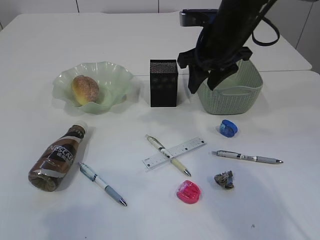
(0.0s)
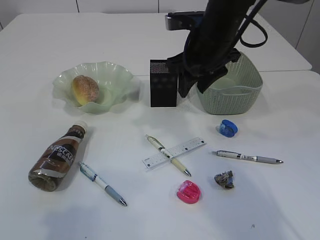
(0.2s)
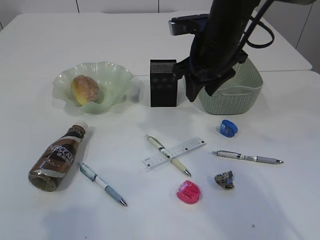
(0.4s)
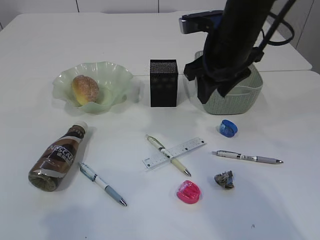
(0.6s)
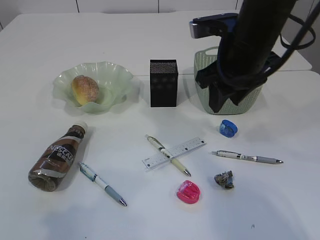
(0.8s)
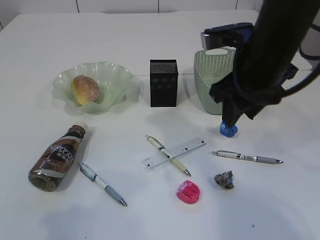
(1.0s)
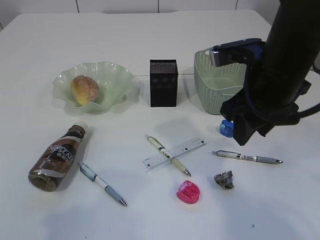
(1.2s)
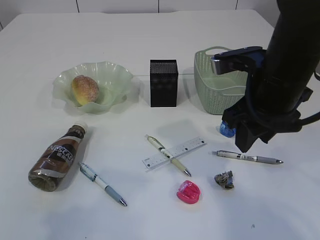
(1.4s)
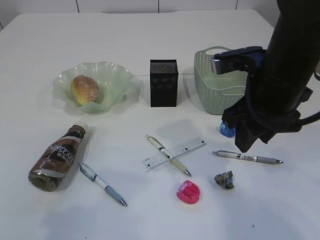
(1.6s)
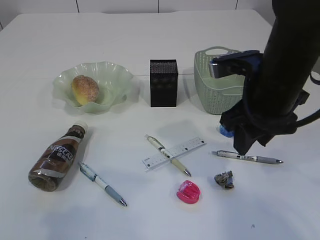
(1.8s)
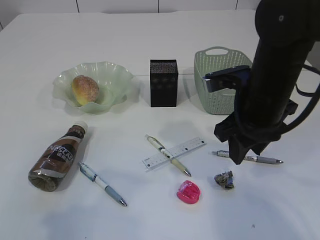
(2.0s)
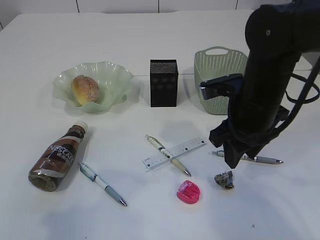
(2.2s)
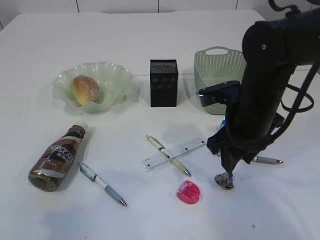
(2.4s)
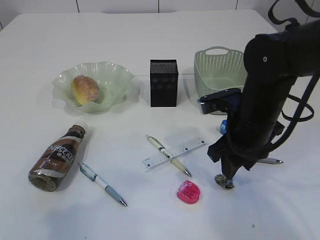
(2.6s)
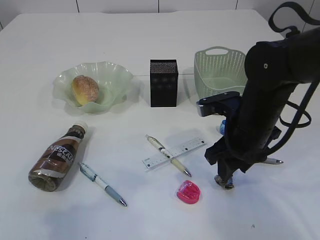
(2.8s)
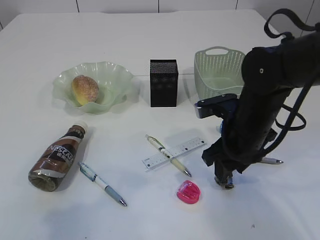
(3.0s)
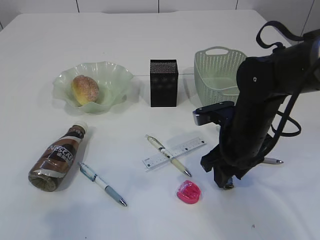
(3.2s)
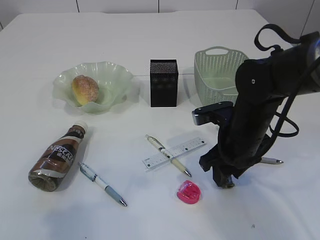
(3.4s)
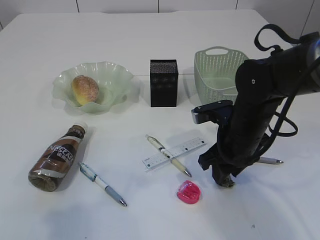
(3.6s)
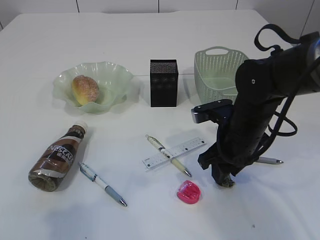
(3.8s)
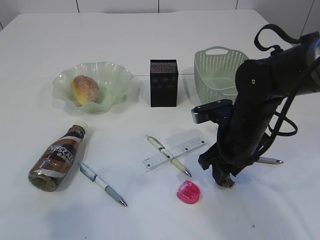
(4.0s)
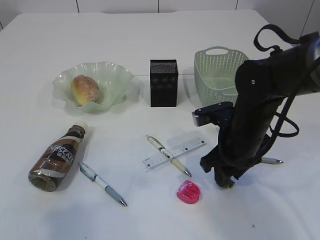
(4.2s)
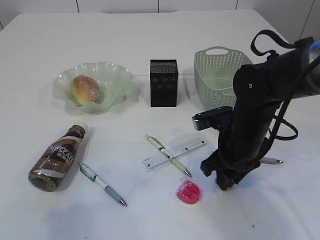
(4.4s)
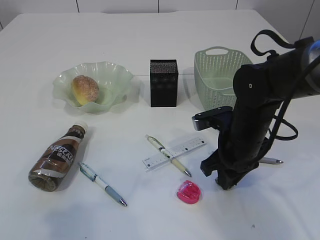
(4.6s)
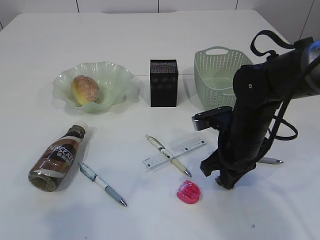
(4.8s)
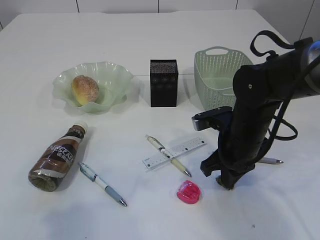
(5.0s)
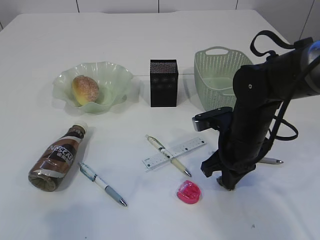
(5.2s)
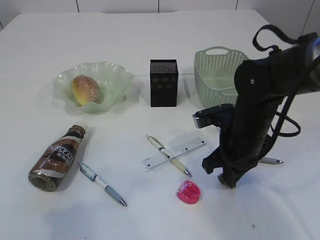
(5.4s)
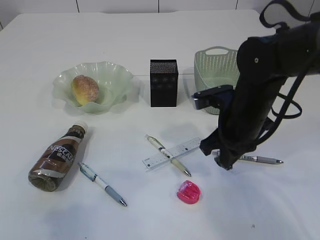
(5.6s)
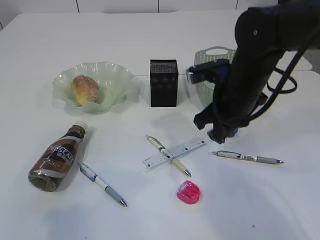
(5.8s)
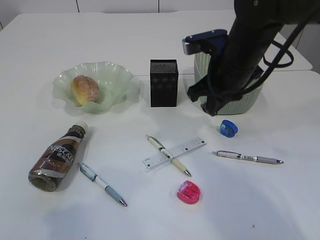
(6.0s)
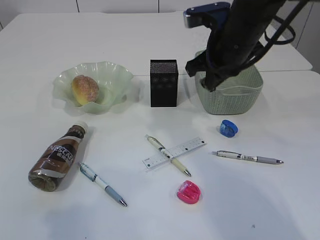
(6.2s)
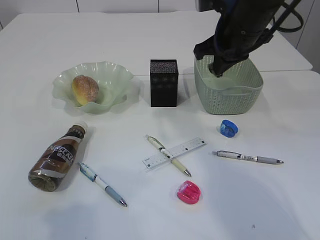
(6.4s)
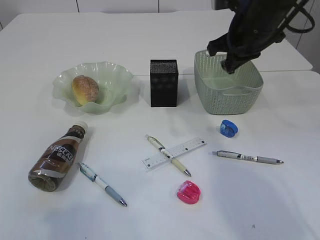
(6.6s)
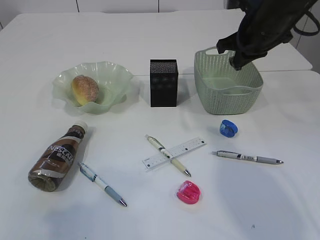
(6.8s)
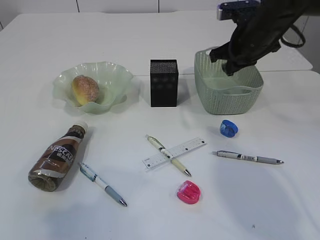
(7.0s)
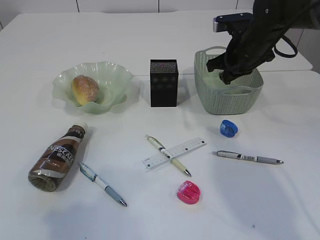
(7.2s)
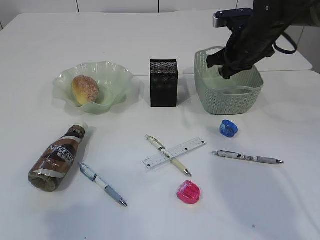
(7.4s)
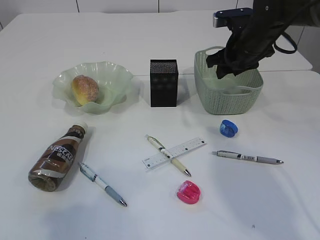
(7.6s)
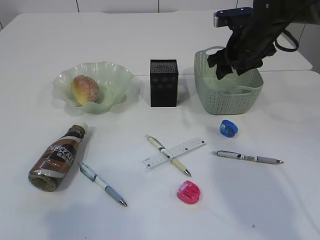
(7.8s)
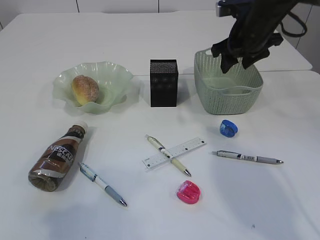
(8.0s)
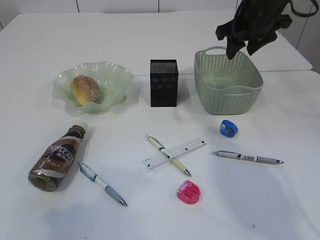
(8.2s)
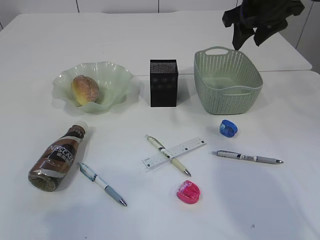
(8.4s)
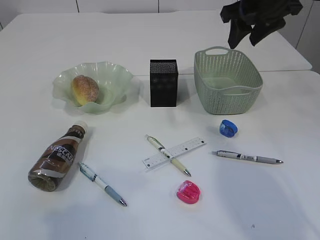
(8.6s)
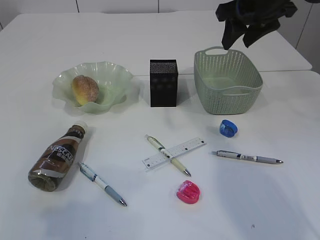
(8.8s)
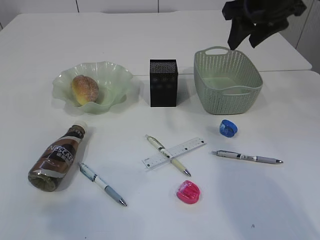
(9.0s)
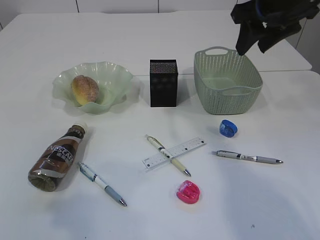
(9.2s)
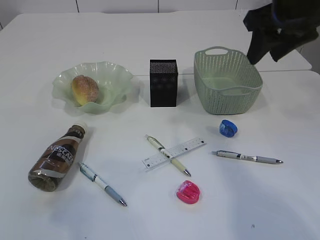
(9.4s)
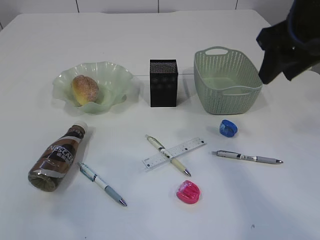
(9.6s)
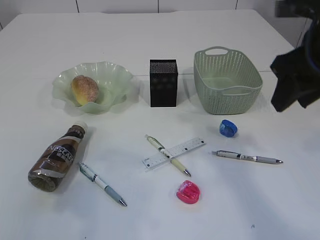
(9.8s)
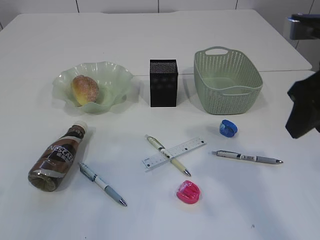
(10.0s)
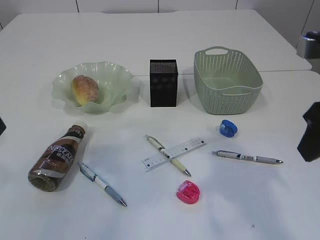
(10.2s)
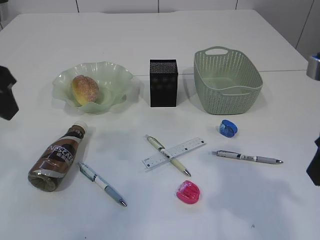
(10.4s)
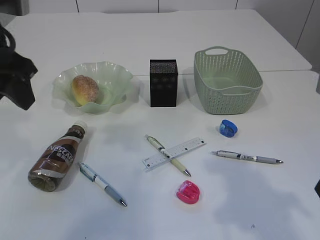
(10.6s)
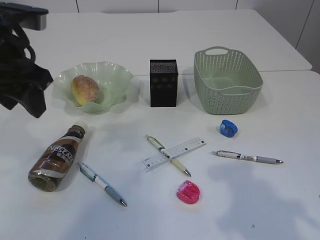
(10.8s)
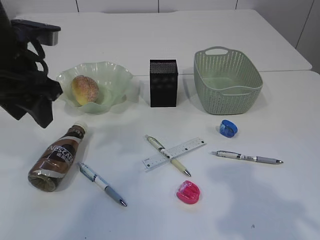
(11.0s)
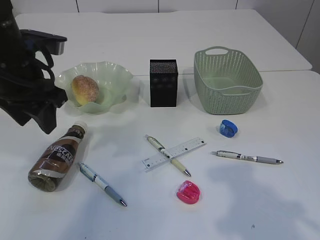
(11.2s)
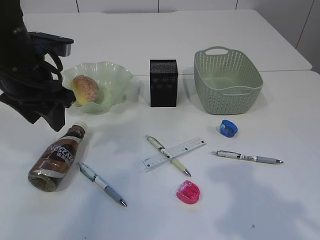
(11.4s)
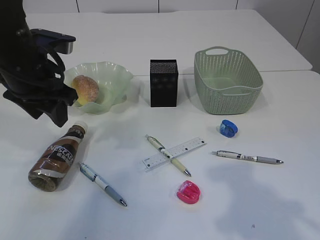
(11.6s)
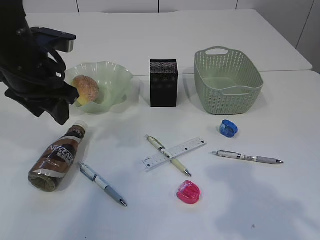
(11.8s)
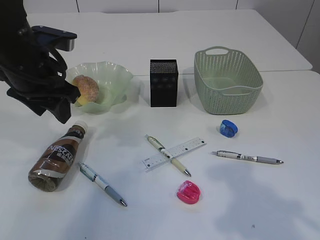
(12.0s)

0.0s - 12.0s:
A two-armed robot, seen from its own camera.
Step, 0.0s - 6.0s: Pick up the waste paper.
Step, 6.2s - 8.8s: Place the waste paper in the basket.
0.0s - 1.6s: The right gripper heads backward, covering some 10 cm.
1.6s - 3.0s: The right gripper moves downward, roughly 10 cm.
3.0s - 4.4s: The grippers make only small movements.
4.4s - 6.0s: The right gripper moves upward, roughly 10 cm, and closes its fingers.
6.0s - 7.6s: The right gripper moves forward and to the right, approximately 10 cm, and opens its fingers.
7.6s - 9.0s: The right gripper moves upward and backward, about 15 cm.
9.0s - 10.4s: The right gripper moves backward, approximately 20 cm; the left gripper goes approximately 15 cm forward.
10.4s - 12.0s: The left gripper travels forward and downward by roughly 10 cm.

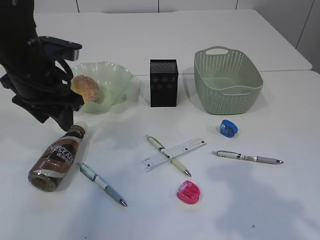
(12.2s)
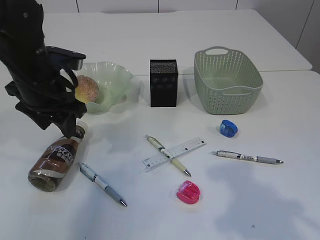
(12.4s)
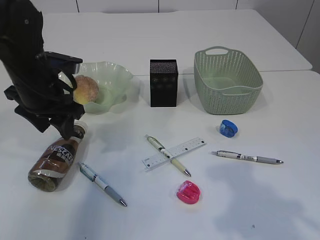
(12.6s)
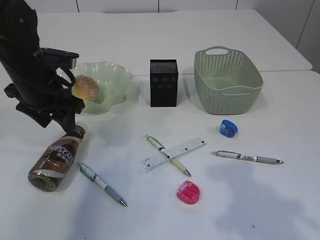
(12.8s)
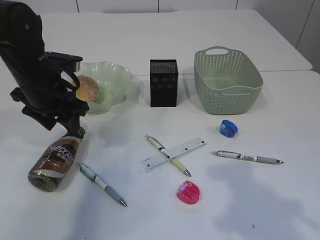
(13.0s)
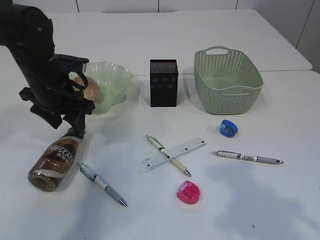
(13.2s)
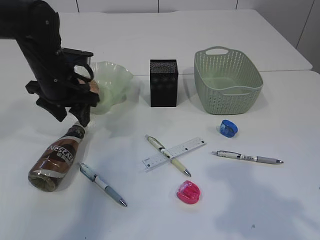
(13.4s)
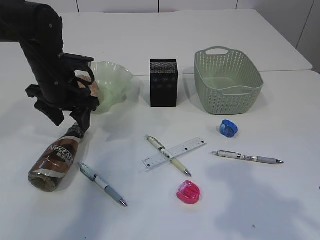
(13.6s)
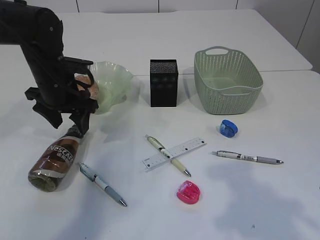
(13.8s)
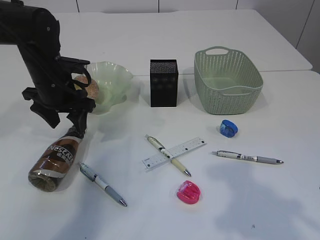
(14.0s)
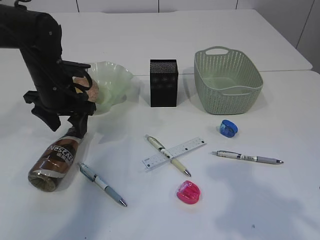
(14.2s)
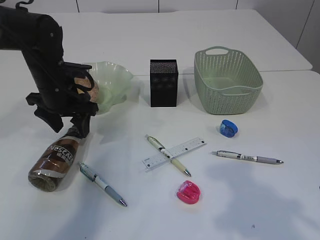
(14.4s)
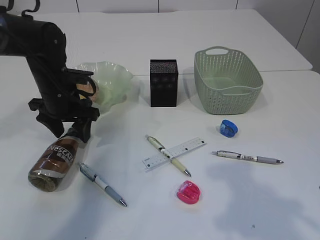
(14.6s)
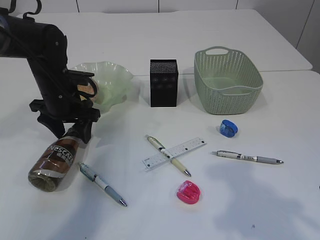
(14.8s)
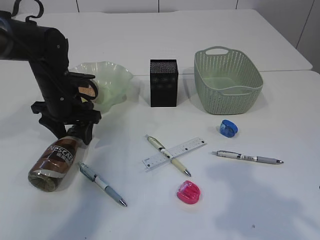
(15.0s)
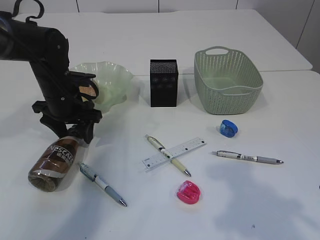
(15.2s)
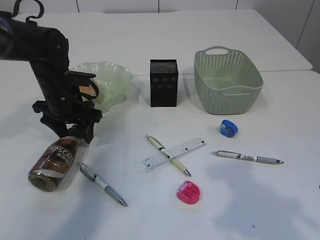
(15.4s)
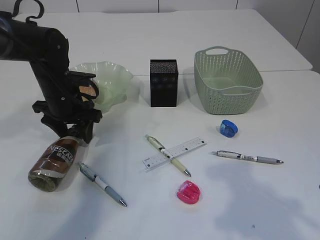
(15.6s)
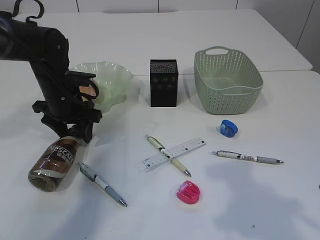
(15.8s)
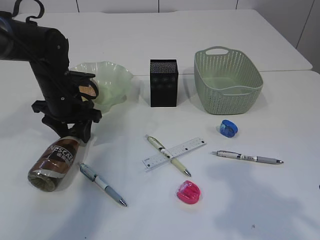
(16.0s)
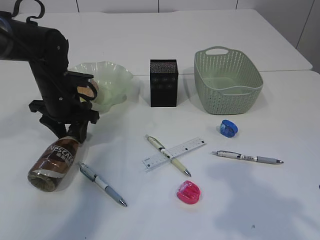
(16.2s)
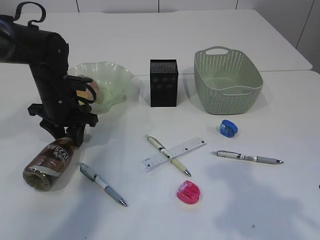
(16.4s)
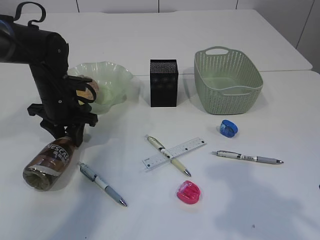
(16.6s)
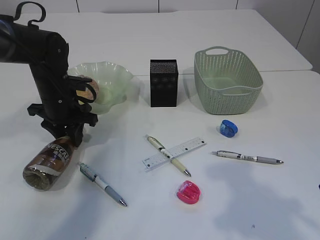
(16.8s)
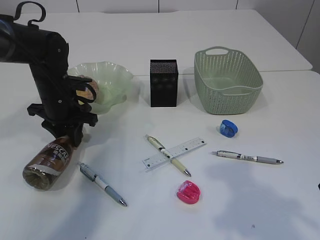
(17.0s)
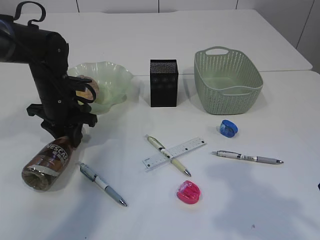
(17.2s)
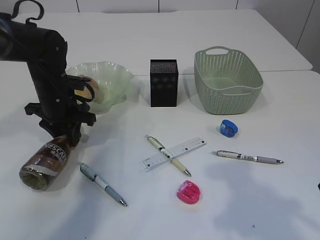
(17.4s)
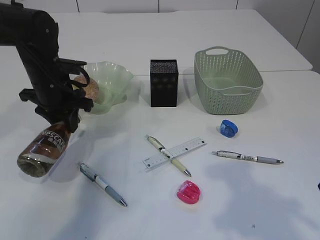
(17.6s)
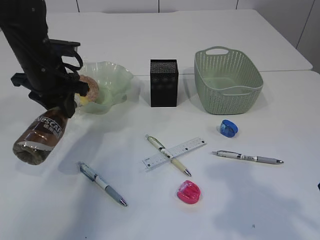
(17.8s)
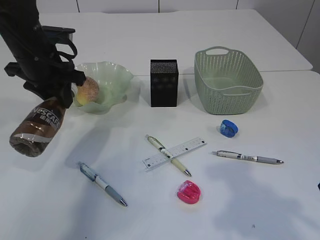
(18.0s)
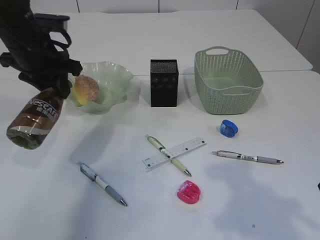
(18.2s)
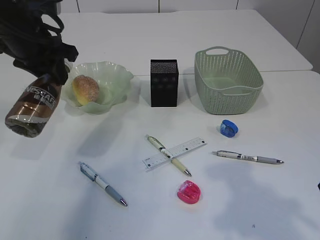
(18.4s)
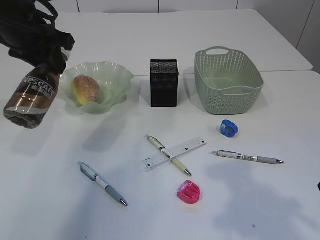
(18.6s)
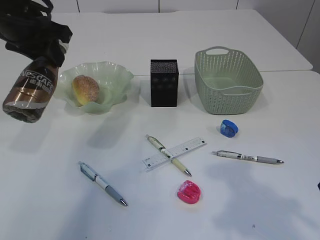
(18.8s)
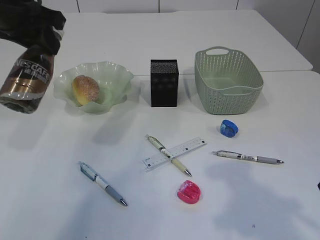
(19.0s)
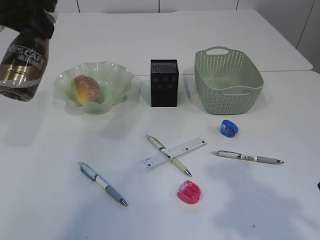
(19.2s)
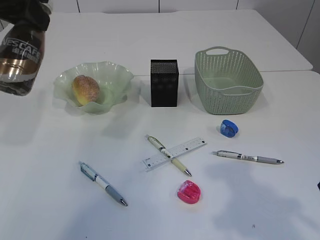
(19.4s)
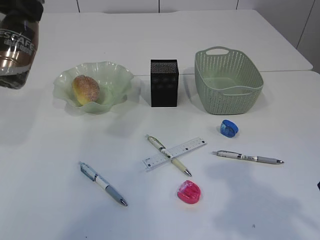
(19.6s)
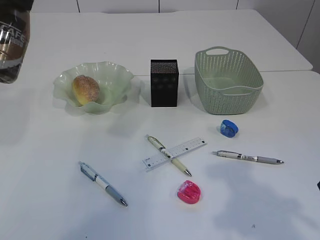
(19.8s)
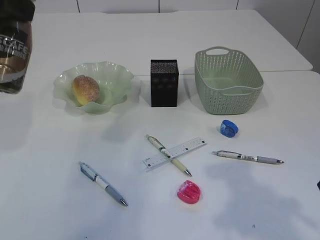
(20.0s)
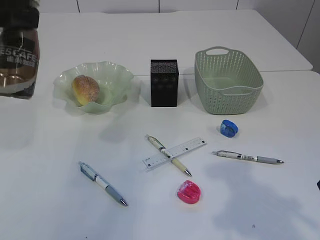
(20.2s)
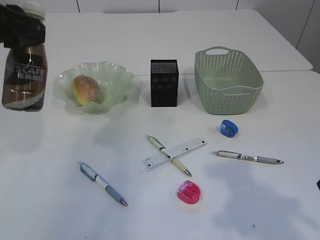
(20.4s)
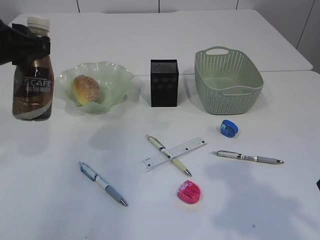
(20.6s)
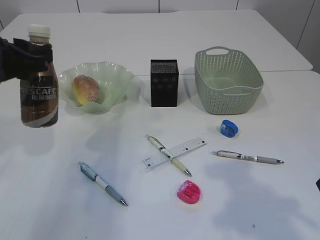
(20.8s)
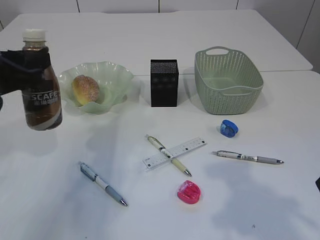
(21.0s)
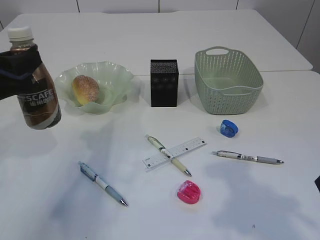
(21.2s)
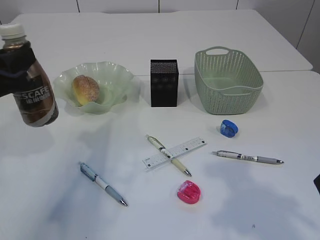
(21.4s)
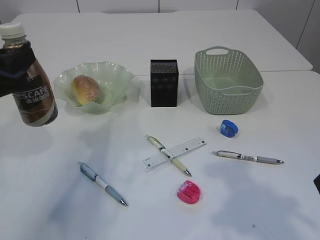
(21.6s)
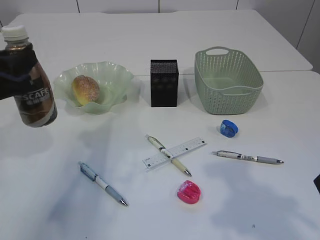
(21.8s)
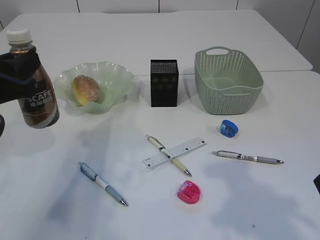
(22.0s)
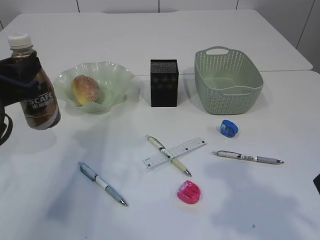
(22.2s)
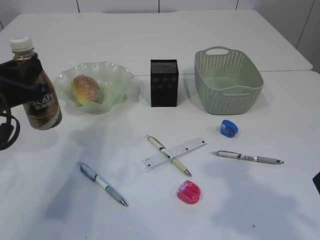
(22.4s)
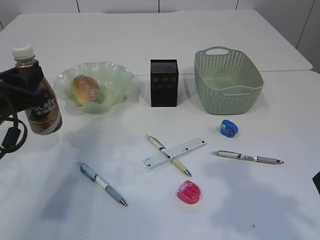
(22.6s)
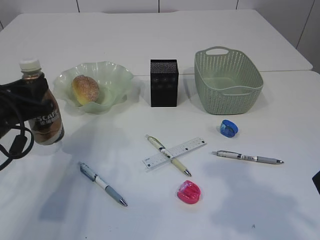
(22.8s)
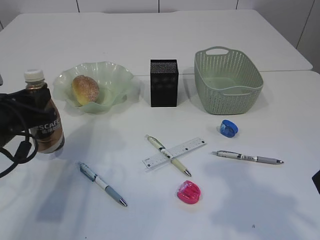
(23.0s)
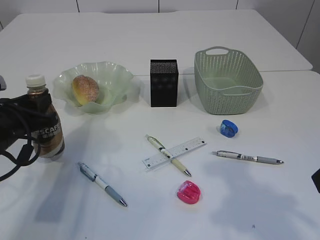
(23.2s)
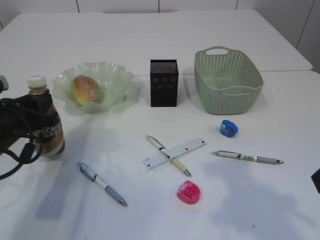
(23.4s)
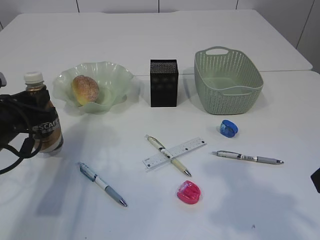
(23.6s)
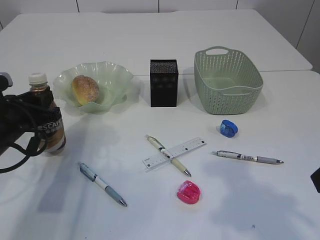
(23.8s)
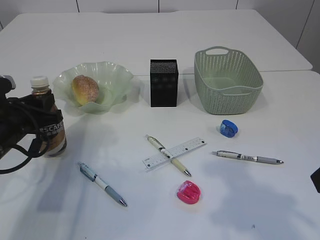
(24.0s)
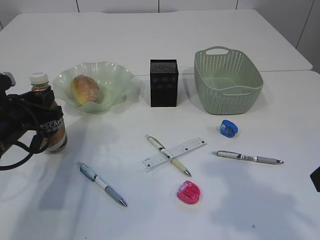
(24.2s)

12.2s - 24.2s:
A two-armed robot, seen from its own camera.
Step, 12.2s - 18.0s: Pick up the bottle with the left arm.
12.2s - 13.8s: The left gripper goes about 10 cm forward and downward.
13.8s - 15.2s: The grippers stay close to where they were, moving slightly.
15.2s - 16.6s: The left gripper closes its fingers.
16.6s - 18.2s: The left gripper is displaced upward by approximately 15 cm.
18.2s - 19.8s: The left gripper is displaced upward and backward by roughly 15 cm.
19.8s - 21.2s: The left gripper shifts some 15 cm downward.
21.2s - 22.6s: The left gripper heads downward, covering some 5 cm.
22.6s - 24.2s: The left gripper moves downward, some 5 cm.
